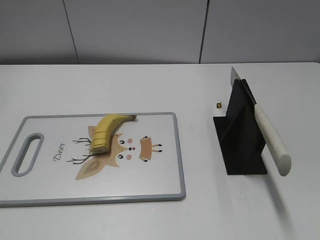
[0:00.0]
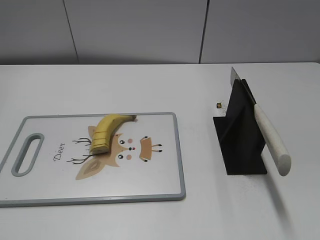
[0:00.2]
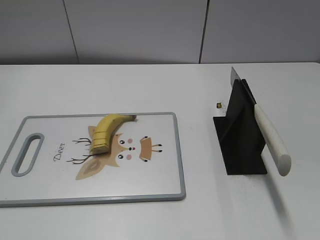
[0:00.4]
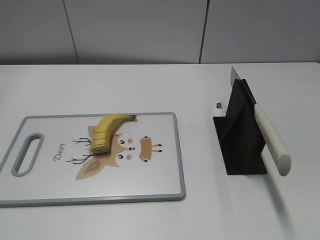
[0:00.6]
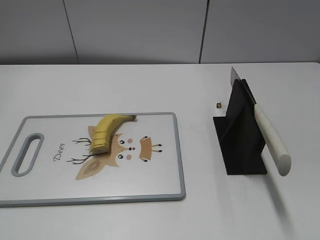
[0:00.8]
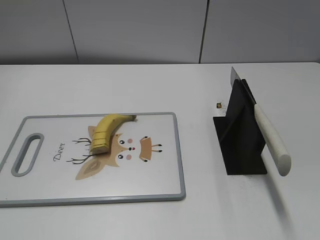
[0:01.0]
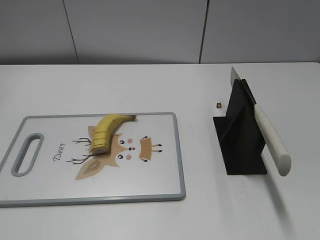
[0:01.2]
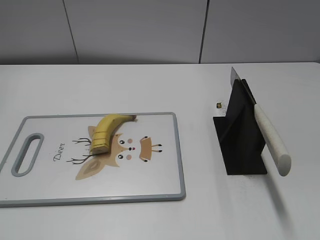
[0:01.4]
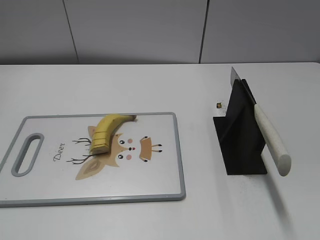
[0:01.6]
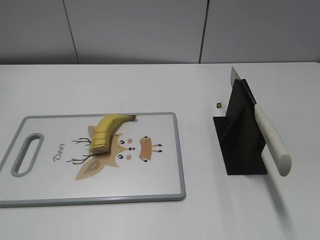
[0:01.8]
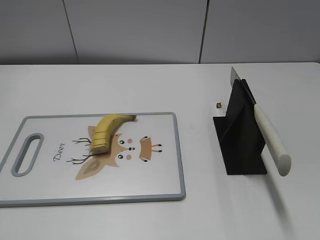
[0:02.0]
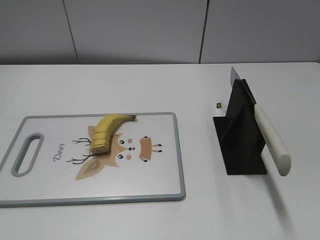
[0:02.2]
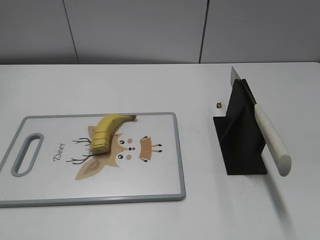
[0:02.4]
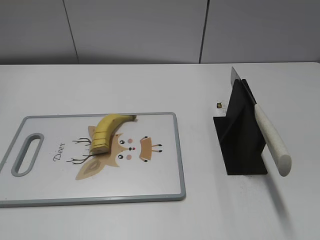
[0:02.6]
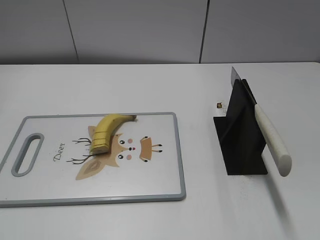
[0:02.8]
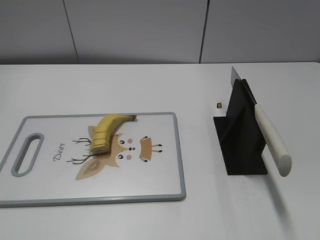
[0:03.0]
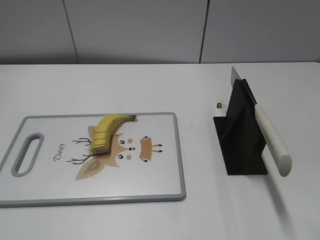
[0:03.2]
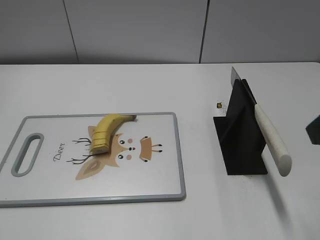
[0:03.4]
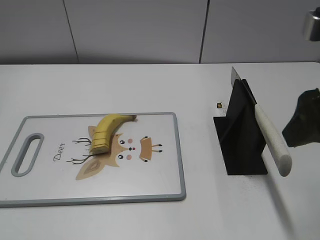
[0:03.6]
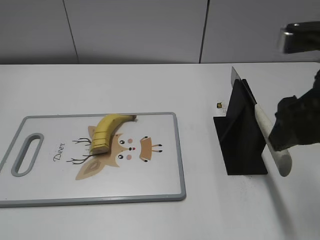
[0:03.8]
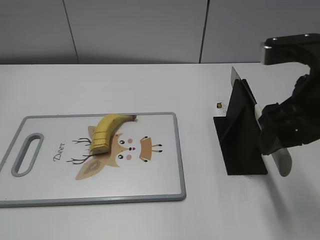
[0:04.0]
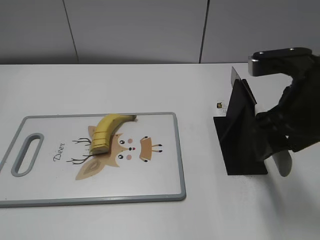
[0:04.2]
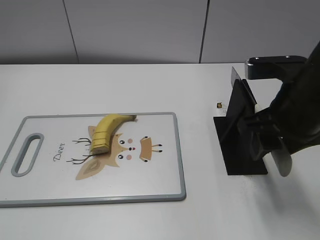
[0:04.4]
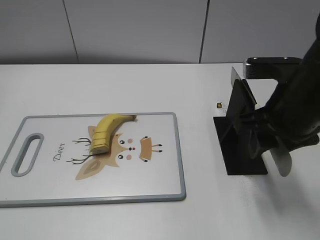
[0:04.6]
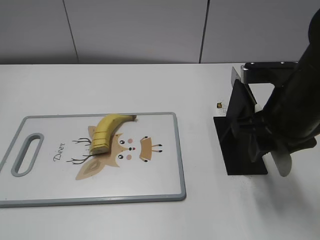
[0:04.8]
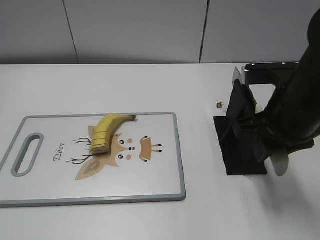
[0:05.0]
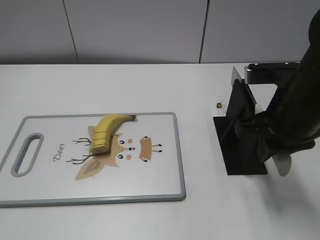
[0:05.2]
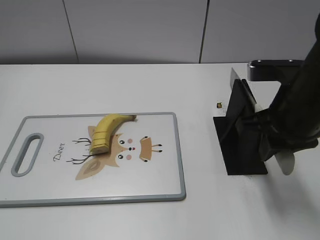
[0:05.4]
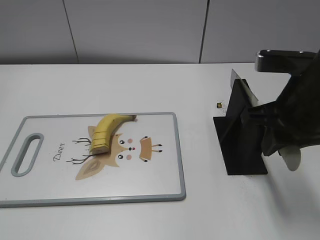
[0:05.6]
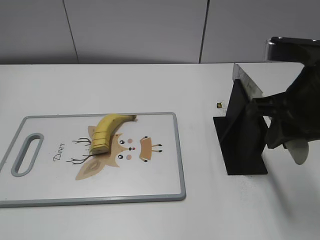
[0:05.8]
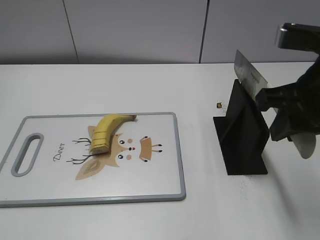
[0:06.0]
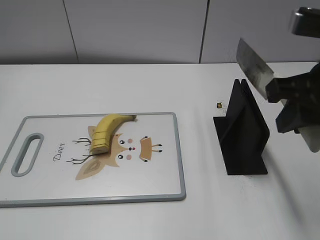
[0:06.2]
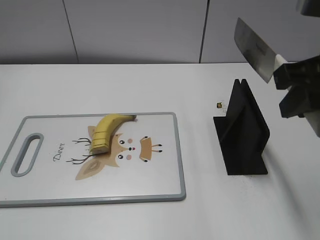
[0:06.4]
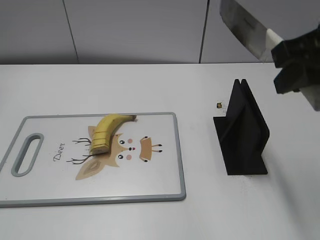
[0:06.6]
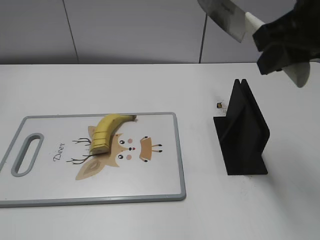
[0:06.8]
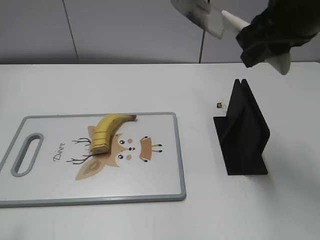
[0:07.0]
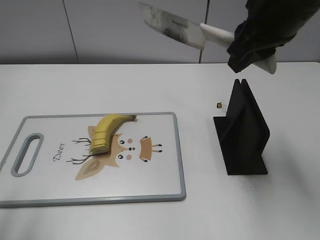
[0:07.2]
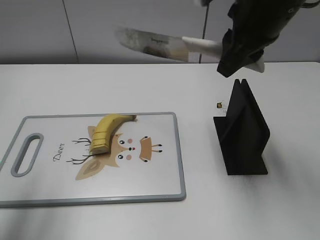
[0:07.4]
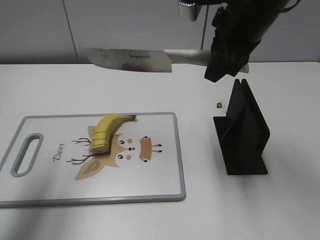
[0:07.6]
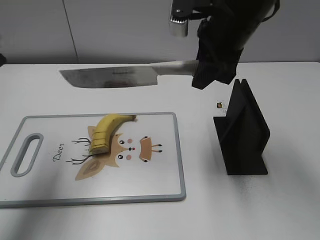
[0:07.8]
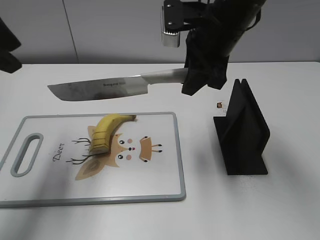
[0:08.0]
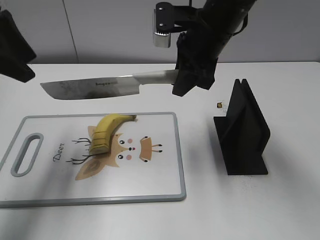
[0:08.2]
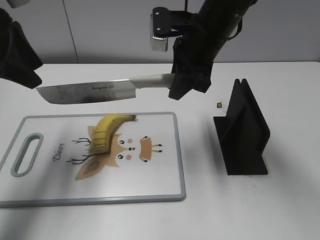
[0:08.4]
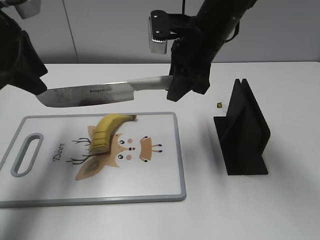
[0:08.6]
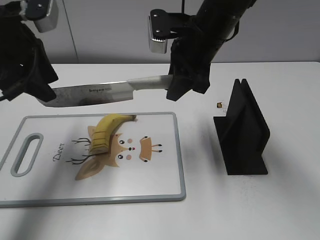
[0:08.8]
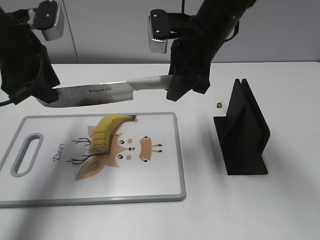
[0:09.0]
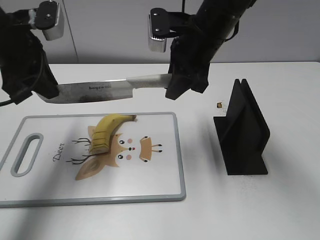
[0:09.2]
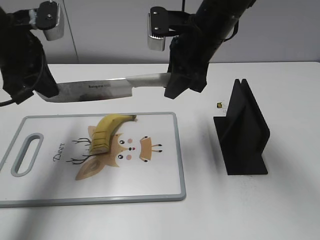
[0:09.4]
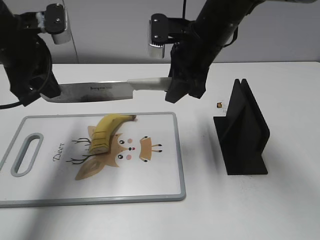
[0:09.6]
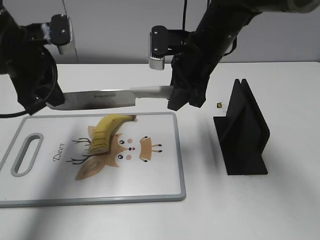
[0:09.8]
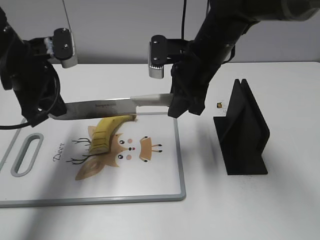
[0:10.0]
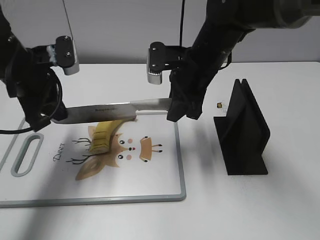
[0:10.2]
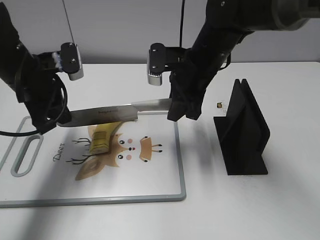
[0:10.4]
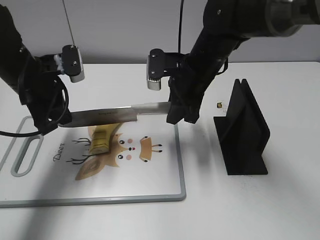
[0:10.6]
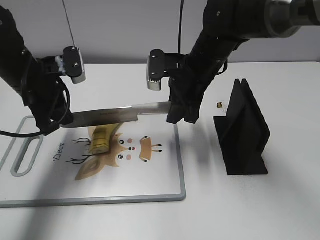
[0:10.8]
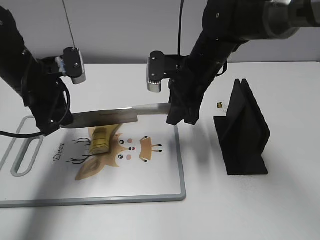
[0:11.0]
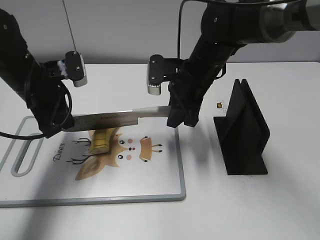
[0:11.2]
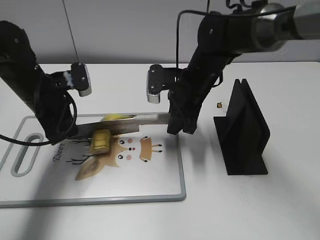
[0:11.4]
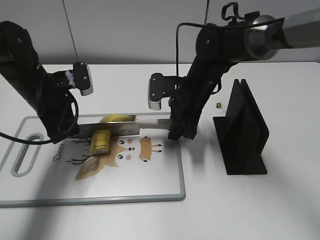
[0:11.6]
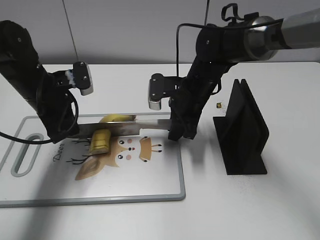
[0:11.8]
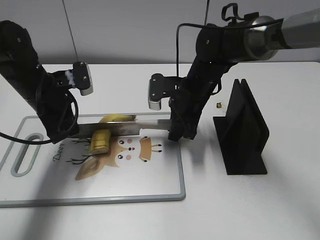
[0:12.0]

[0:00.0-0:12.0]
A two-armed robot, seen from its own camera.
Task of the whole recording: cut banana.
Step, 0:00.0 to 0:06.6: Grab the knife handle with your right hand.
0:03.0 to 0:04.4: The right gripper travels forward, downward and to the left by roughly 15 cm, and closes.
0:04.4 to 0:06.0: The right gripper ends up about 5 cm from where it was, and closes.
0:06.0 to 0:07.6: The left gripper goes about 25 cm forward; the right gripper heads forward and to the left, covering roughly 15 cm.
0:07.6 to 0:09.0: The right gripper is displaced downward by roughly 5 cm, while the left gripper moves forward and downward, some 15 cm.
0:09.0 to 0:10.4: Both grippers move downward, about 5 cm. The left gripper closes.
0:10.4 to 0:12.0: The right gripper travels downward by roughly 5 cm.

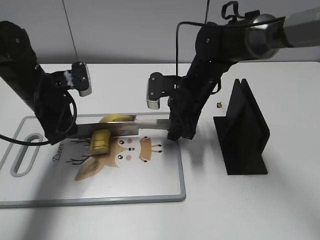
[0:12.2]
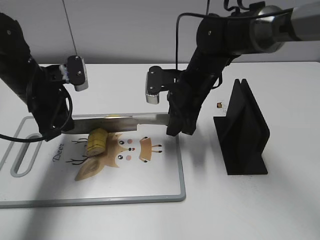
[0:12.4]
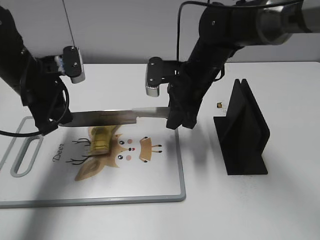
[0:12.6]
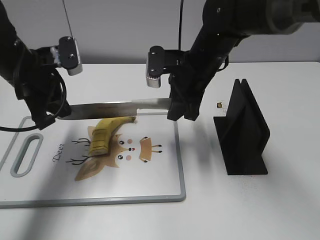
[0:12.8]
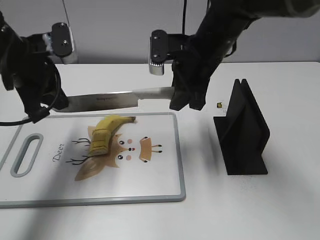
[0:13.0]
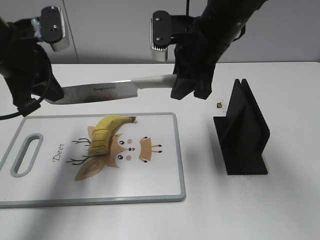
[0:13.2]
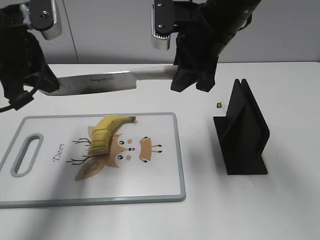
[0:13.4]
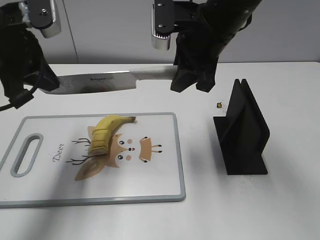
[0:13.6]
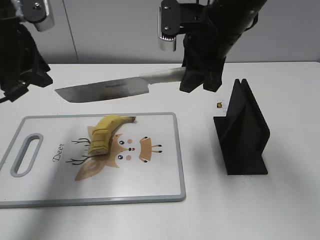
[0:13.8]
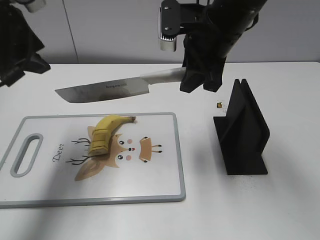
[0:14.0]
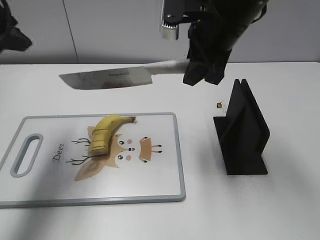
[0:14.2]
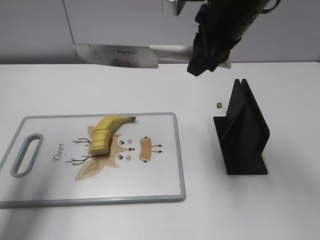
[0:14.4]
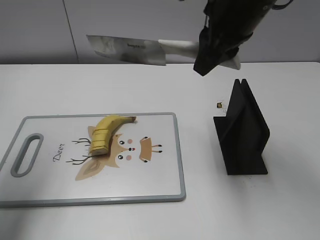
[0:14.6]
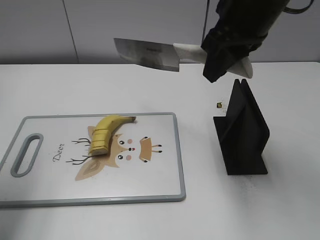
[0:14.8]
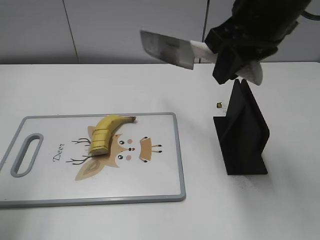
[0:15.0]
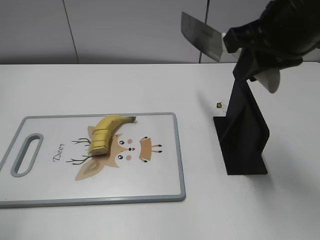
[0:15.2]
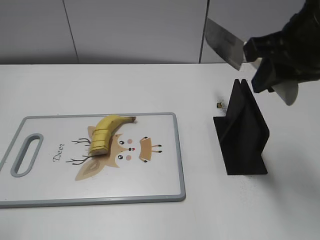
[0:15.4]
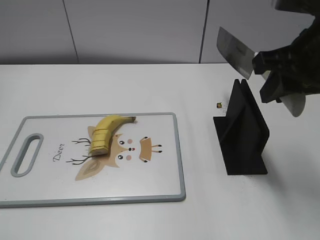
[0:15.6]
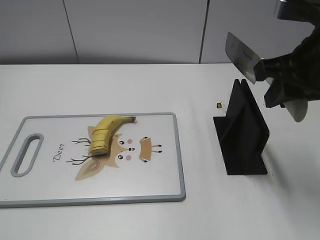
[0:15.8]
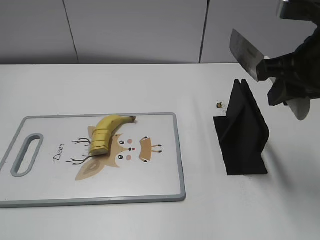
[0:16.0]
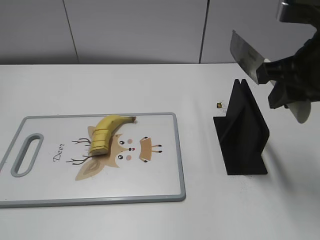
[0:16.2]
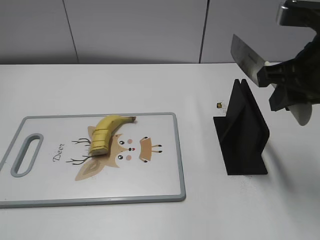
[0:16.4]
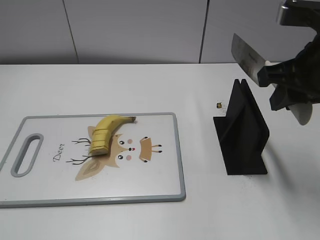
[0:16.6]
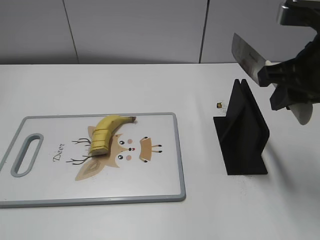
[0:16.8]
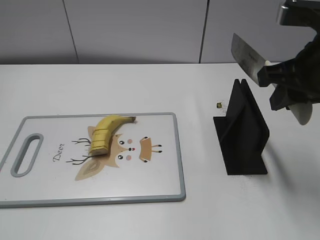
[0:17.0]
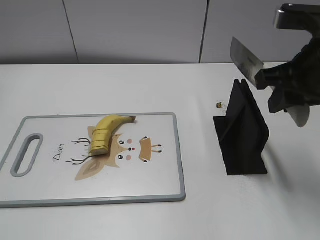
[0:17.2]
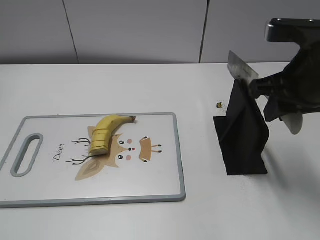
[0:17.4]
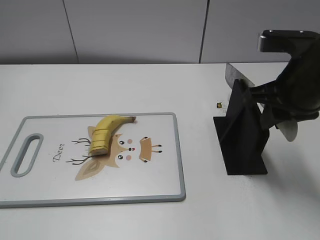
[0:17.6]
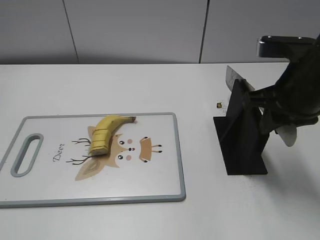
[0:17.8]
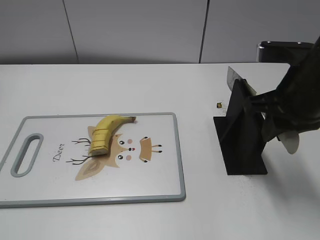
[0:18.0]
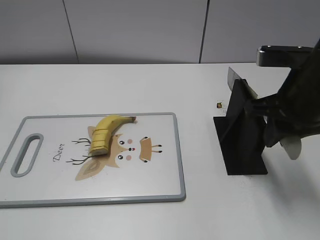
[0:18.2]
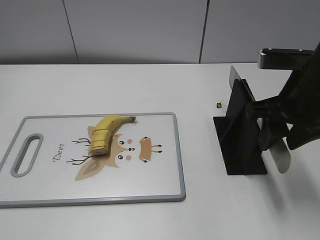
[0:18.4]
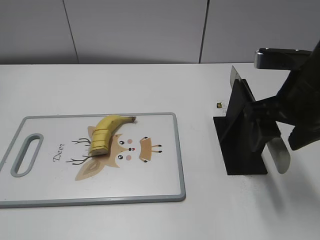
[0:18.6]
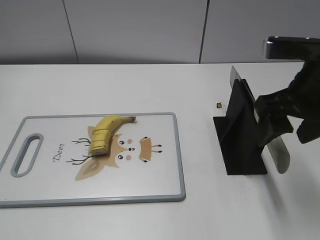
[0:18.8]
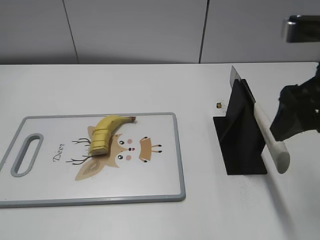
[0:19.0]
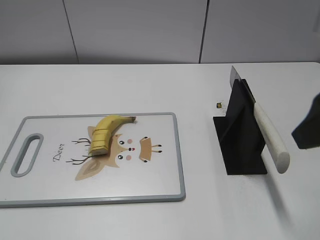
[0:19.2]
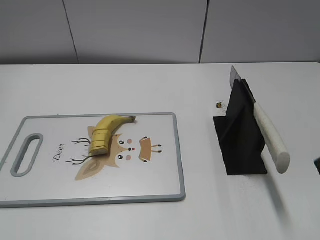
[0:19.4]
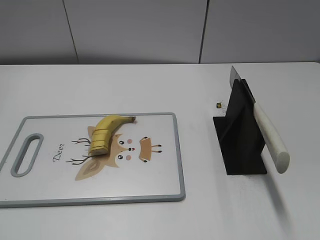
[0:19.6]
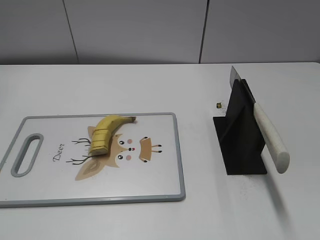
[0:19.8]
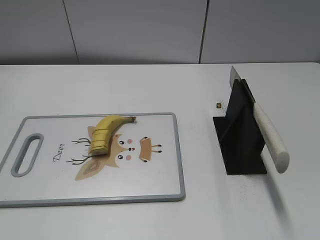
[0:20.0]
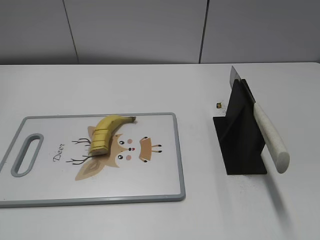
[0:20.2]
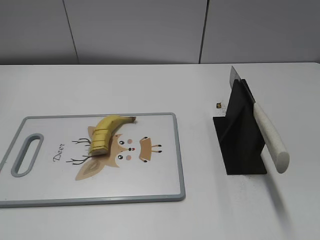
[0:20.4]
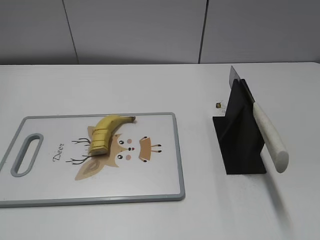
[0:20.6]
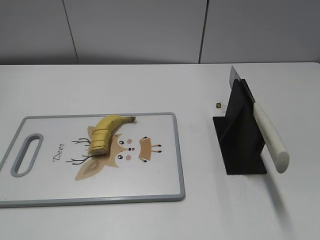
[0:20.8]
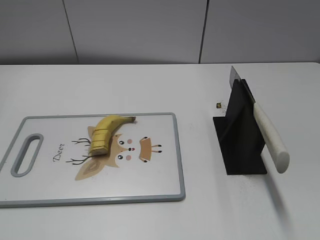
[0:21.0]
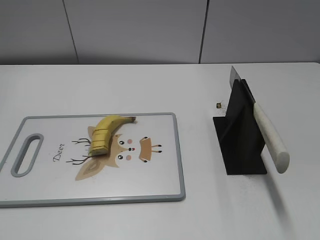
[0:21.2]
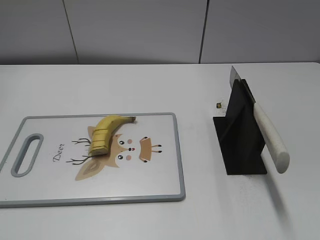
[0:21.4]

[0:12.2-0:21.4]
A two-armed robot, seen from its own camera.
Task of the whole recording: cut banana.
Step, 0:12.2 to 0:15.0: Cut the banana with your right hand.
Step, 0:15.2 to 0:17.0: Lift the knife with your right hand.
Step, 0:17.2 to 0:21.4: Place the knife on the storage rack with your right hand.
0:12.2 to 0:13.8: The two grippers go roughly 15 cm upward. The left gripper opens.
0:13.8 to 0:15.2: The right gripper is displaced backward, to the right and upward by roughly 10 cm; the left gripper travels backward and to the left by approximately 20 cm, and opens.
0:15.2 to 0:16.8: The right gripper ends up approximately 5 cm from where it was. The left gripper goes roughly 15 cm backward.
0:16.8 to 0:18.4: The right gripper opens up.
0:18.4 to 0:19.8: The right gripper shifts roughly 20 cm backward, and opens up.

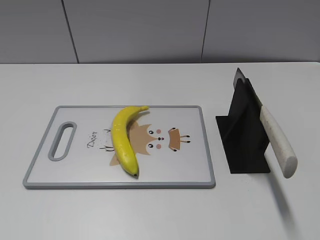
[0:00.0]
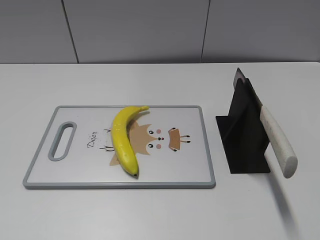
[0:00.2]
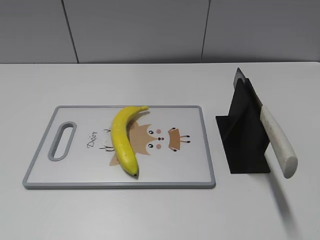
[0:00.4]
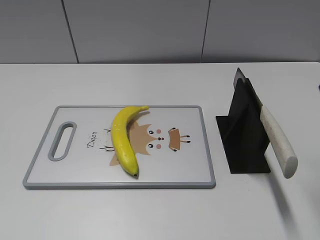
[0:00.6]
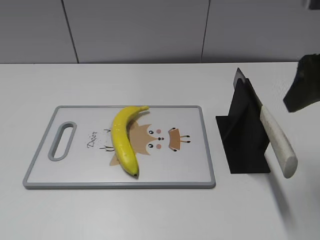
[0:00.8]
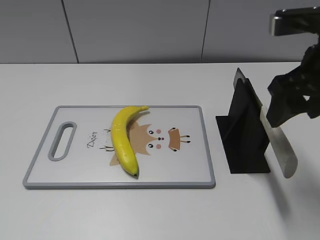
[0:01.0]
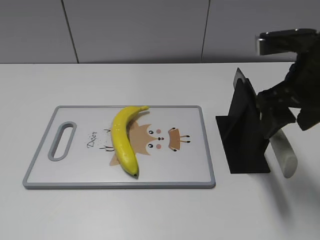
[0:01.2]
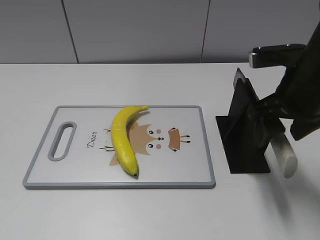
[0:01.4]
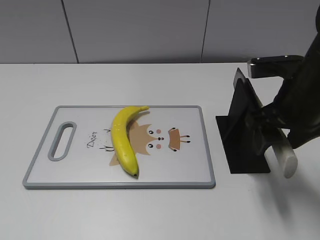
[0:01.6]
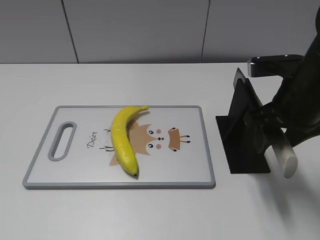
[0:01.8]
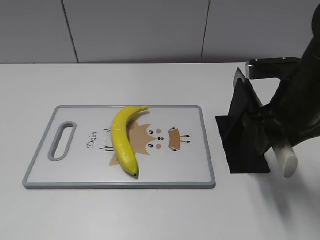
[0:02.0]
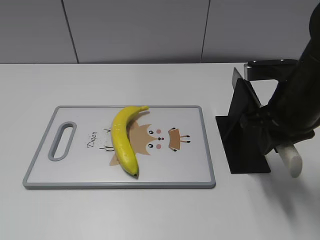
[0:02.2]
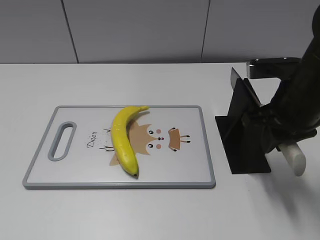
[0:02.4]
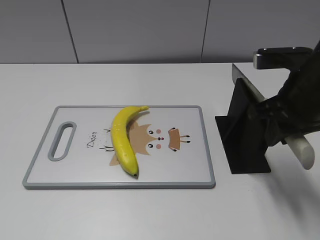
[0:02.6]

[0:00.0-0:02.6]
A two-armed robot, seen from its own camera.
Task of the whole recording: cut plastic banana.
0:00.0 to 0:01.2: The right gripper shifts about 20 cm forward, to the left and downward.
0:01.2 to 0:02.6: The right gripper closes up.
